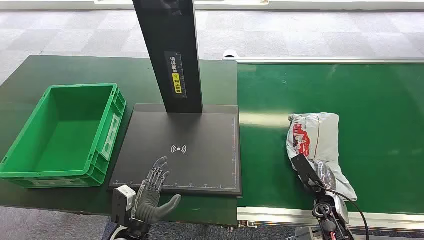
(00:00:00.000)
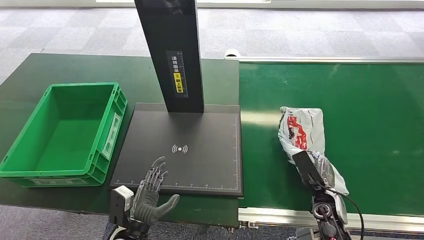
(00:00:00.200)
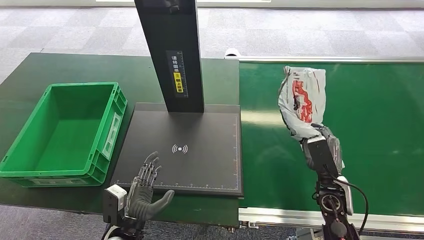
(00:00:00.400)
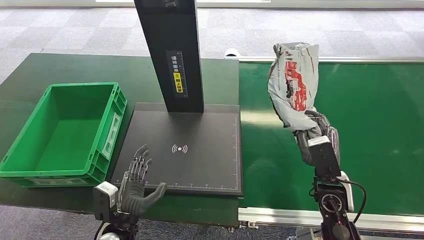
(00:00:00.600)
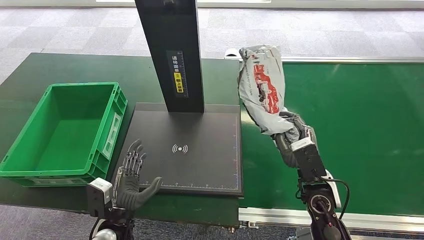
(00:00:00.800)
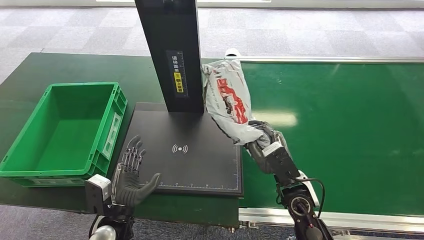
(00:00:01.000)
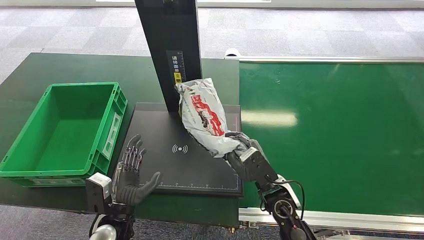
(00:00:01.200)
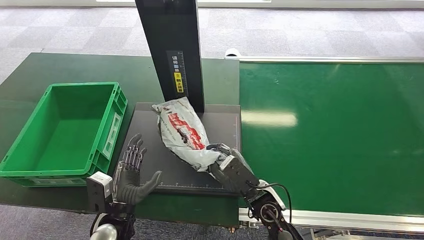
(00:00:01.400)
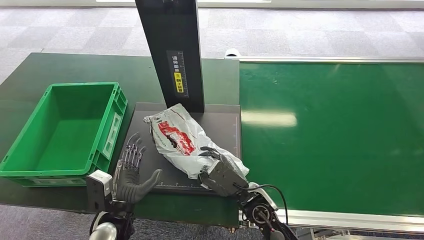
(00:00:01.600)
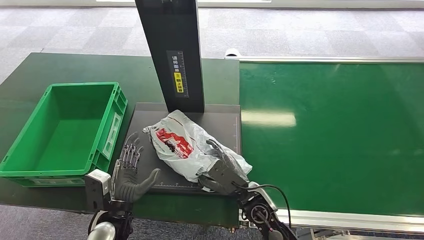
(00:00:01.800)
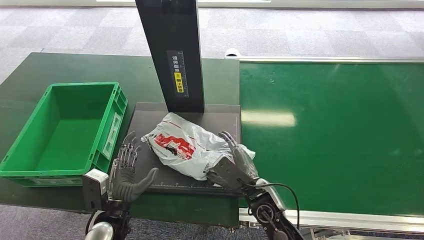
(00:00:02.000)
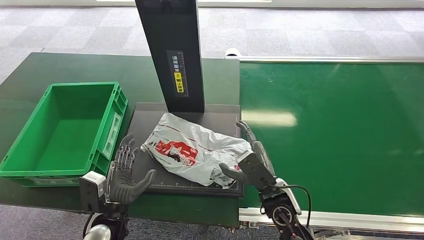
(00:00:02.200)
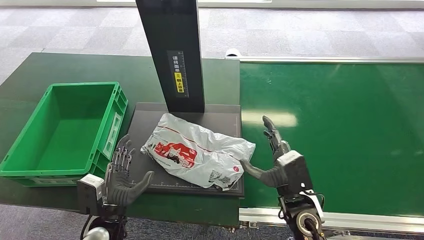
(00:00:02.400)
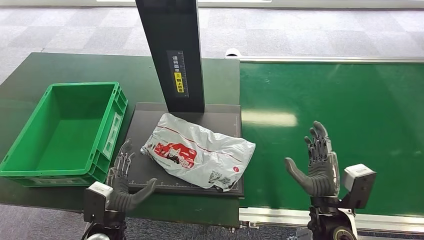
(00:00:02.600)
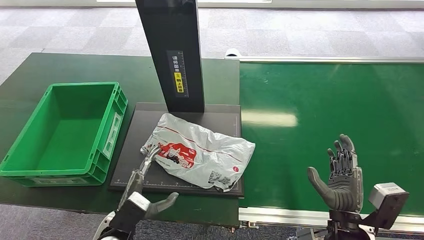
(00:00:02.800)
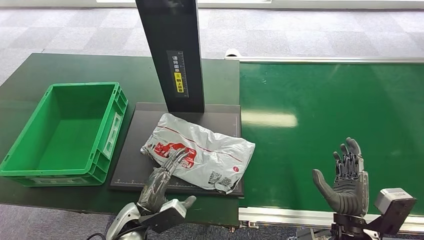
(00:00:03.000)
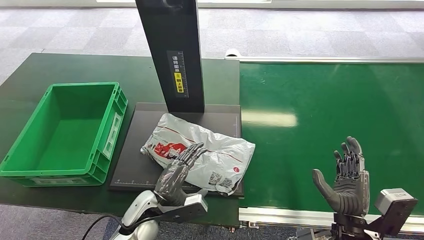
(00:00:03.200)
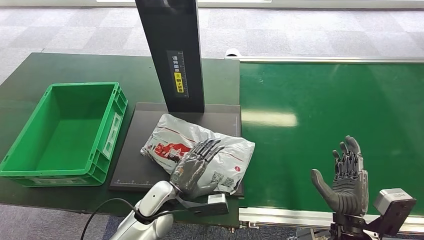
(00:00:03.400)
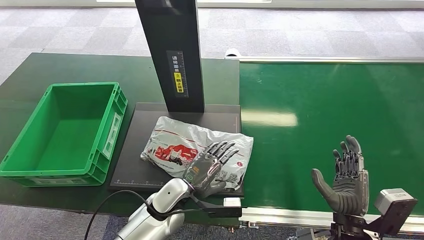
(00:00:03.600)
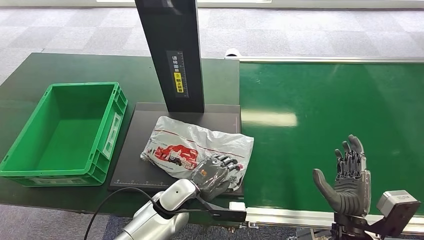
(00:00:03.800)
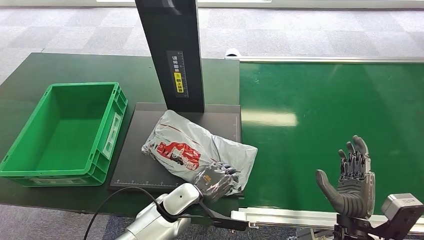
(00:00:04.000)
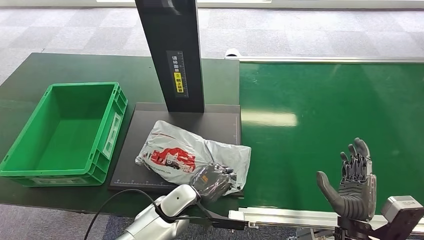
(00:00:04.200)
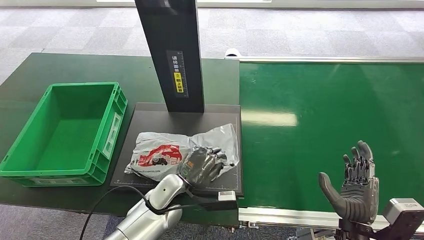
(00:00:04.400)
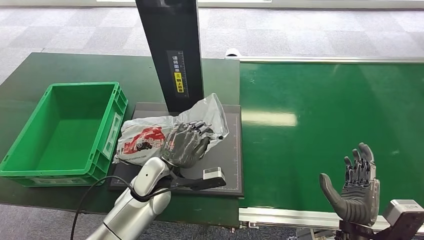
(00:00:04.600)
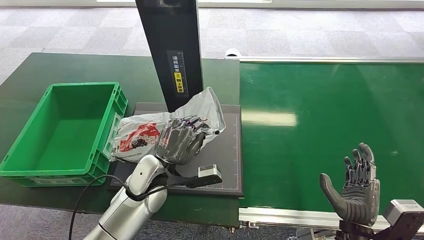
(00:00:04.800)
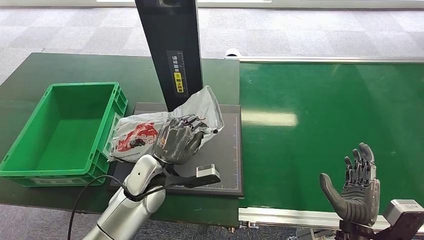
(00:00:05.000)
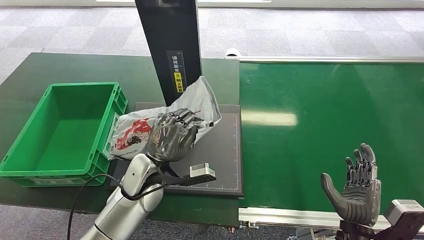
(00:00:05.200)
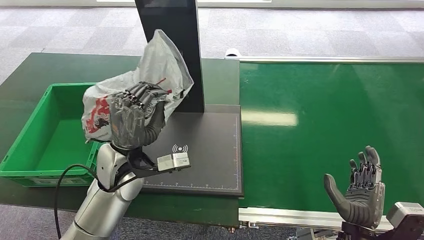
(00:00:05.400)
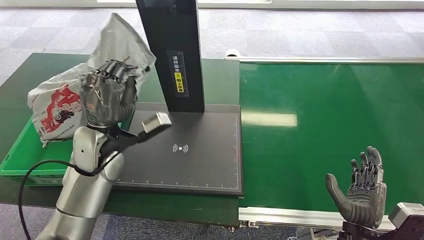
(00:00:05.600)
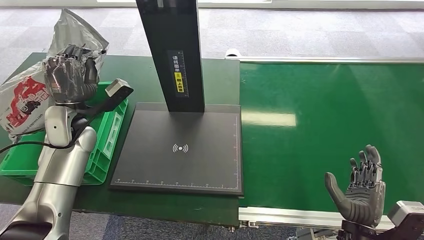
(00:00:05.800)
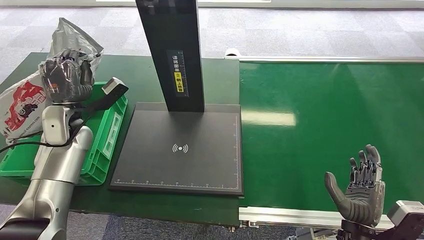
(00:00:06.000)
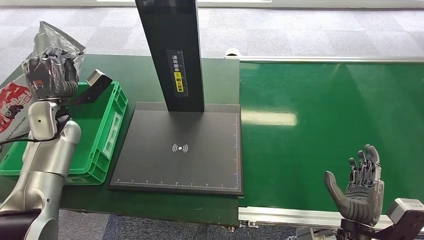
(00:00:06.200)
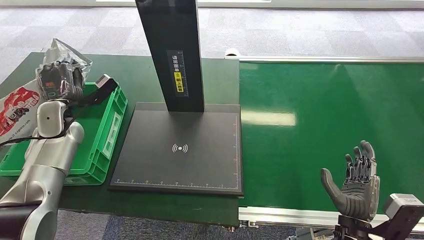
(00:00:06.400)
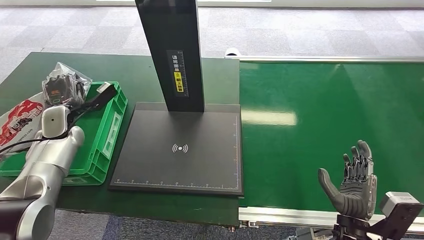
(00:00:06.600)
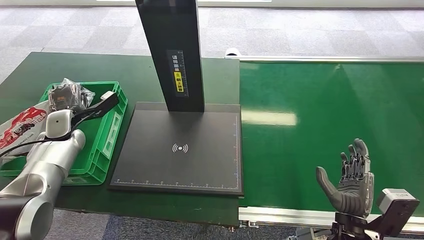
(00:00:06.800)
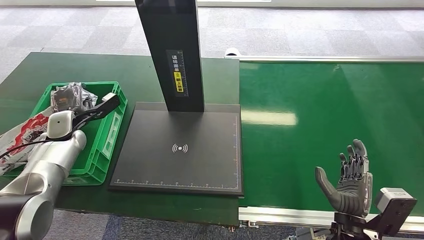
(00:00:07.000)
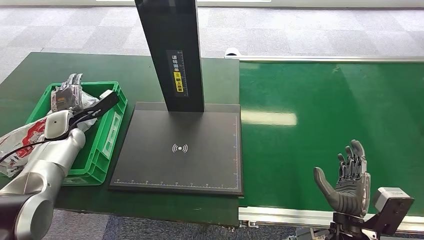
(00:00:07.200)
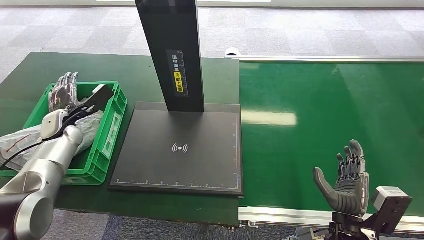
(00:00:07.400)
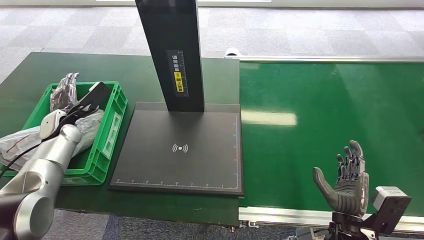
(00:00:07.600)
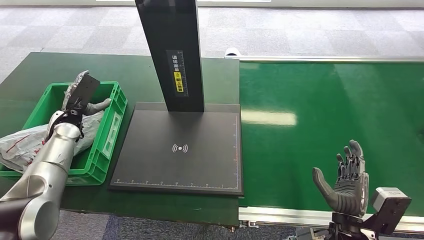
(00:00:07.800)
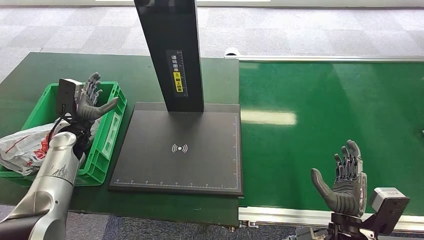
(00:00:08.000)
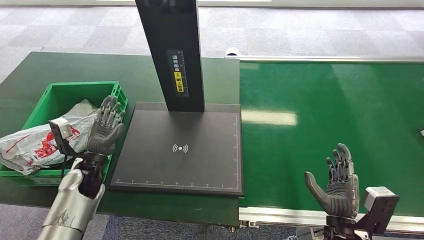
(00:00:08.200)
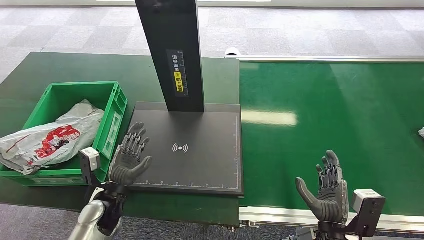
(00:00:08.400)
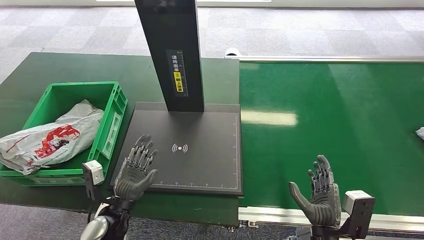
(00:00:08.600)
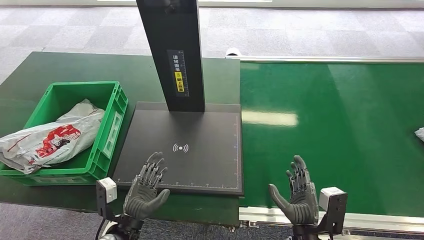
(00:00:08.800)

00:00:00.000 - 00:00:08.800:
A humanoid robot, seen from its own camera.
Task of the whole recording: Weigh the package on the weighing device and place it in the left basket.
Step, 00:00:00.000 - 00:00:00.800: Pick up the package from the conveyor belt.
Step, 00:00:01.000 - 00:00:02.000: Place the package onto the inbound machine.
Step, 00:00:02.200 - 00:00:05.800: Pick up the package from the inbound machine.
Step, 00:00:06.000 - 00:00:08.800: Place the package into the parcel locker.
00:00:01.400 - 00:00:03.000: The right hand is displaced to the right and backward by some 15 cm.
00:00:03.000 - 00:00:04.400: The left hand heads forward and to the right, covering approximately 10 cm.
00:00:07.400 - 00:00:08.800: The right hand travels to the left by approximately 5 cm. Meanwhile the left hand is displaced backward, to the right and downward by some 35 cm.
